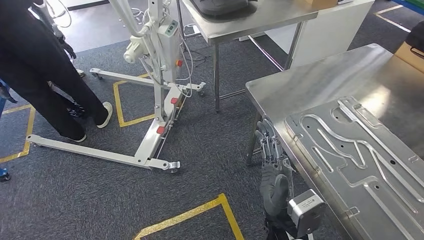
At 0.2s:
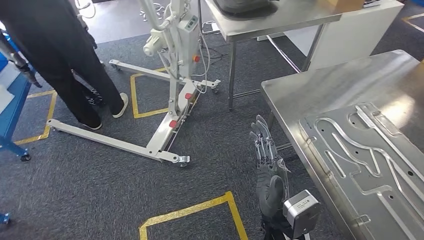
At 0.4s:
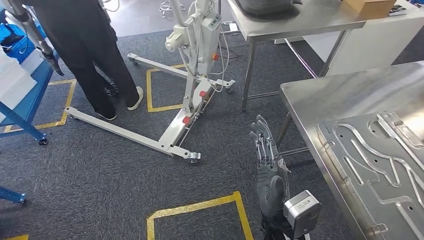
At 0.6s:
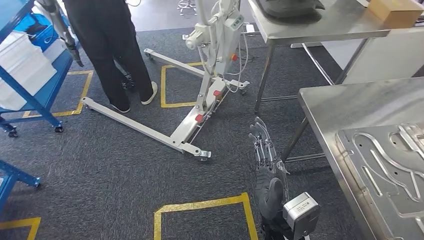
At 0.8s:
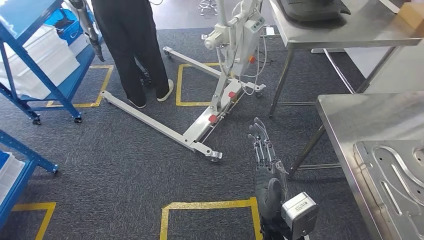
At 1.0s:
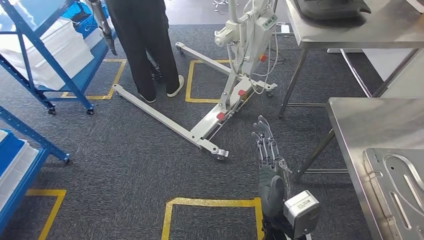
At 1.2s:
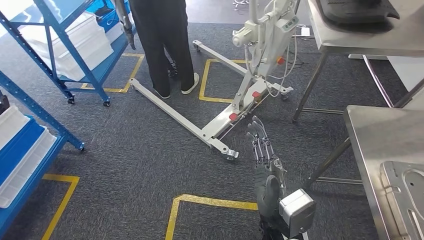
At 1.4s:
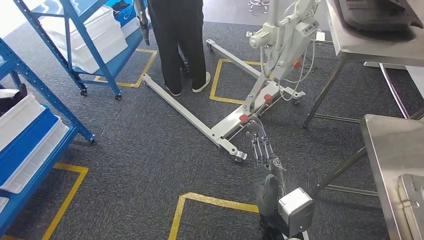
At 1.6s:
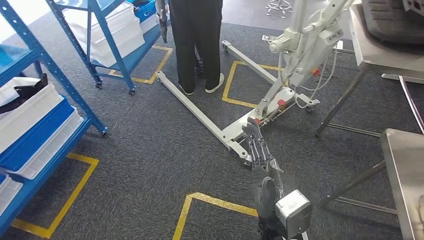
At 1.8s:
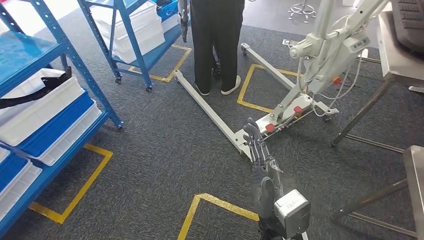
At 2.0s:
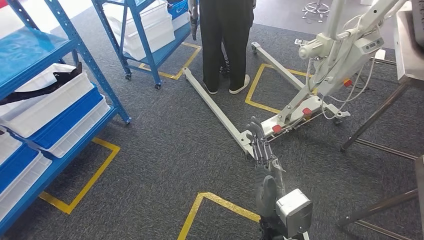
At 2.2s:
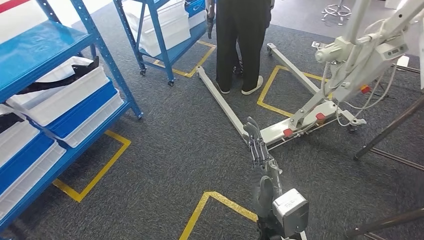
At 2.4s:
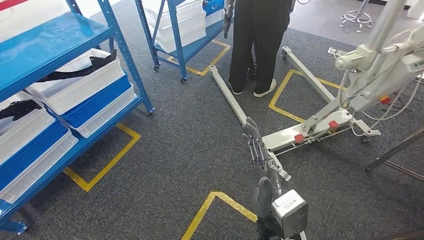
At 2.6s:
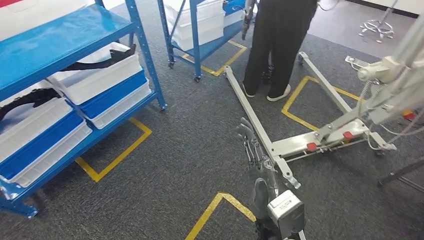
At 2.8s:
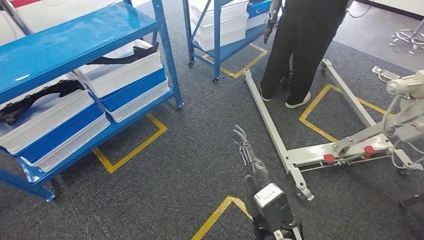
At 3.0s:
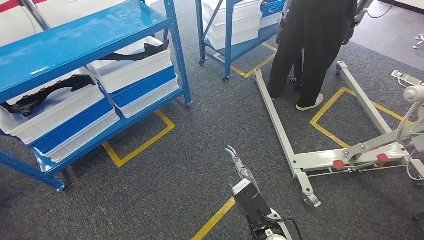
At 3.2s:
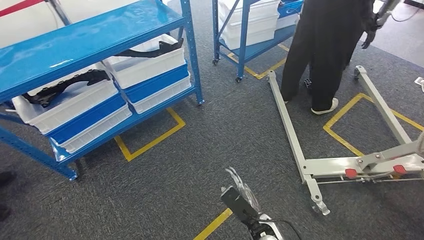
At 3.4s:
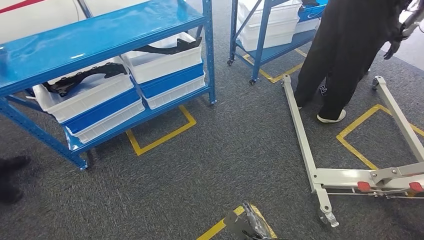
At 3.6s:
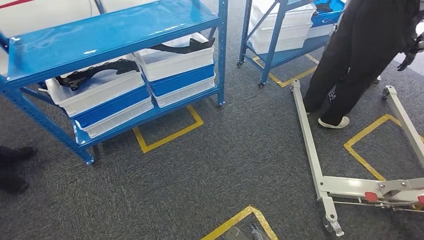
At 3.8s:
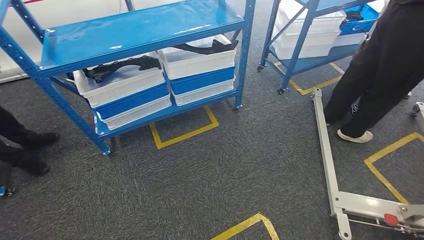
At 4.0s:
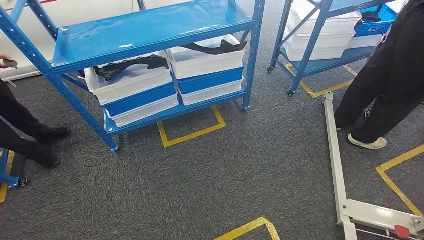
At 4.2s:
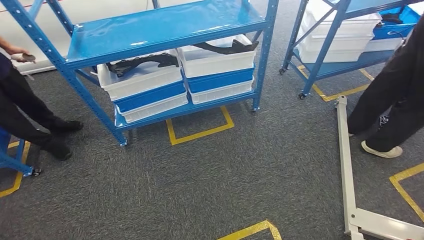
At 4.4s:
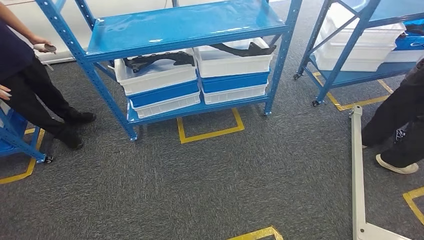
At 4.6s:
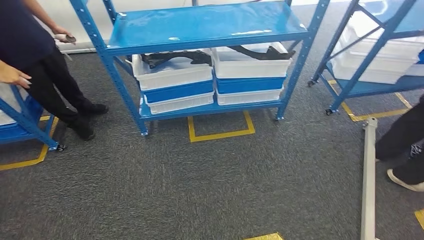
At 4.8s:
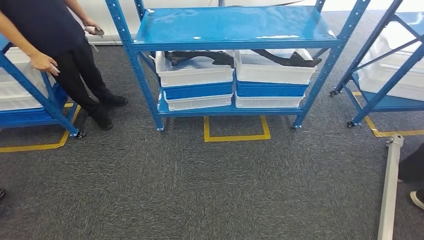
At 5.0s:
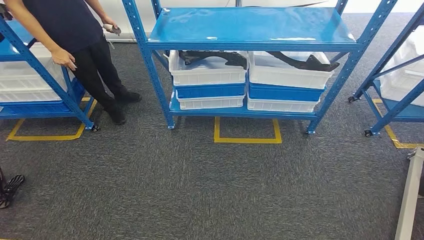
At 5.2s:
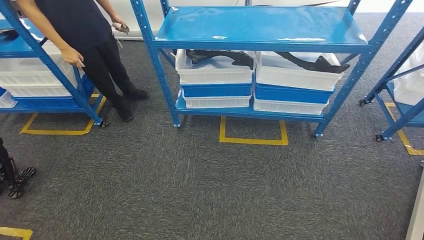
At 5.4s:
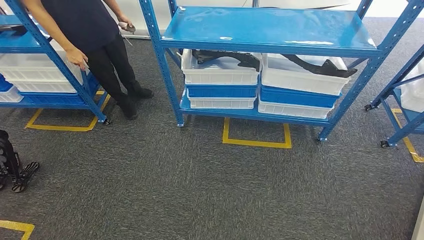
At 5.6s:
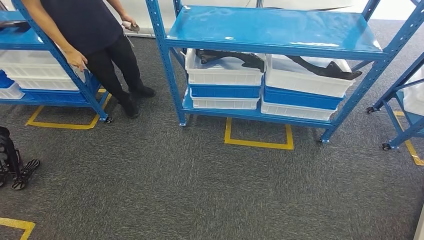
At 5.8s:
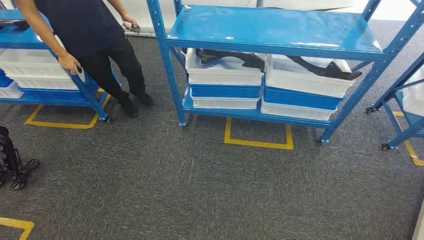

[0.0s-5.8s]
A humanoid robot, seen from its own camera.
Step, 0.0s to 5.8s: Move to the initial position of the shelf.
